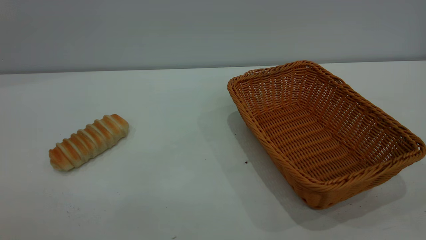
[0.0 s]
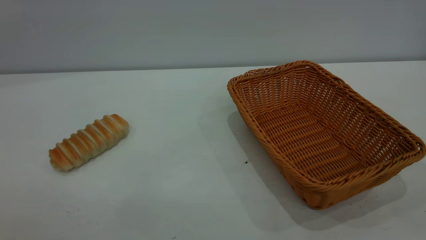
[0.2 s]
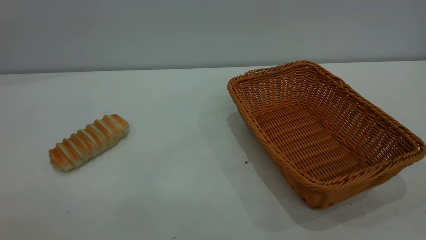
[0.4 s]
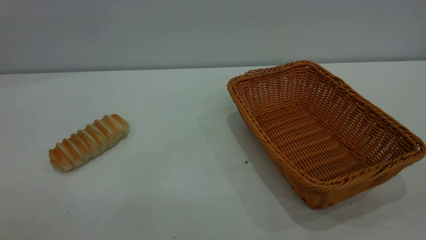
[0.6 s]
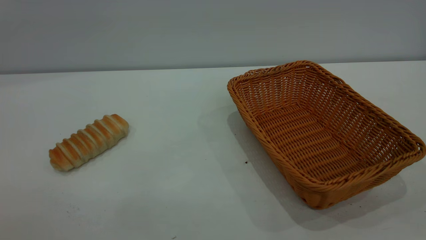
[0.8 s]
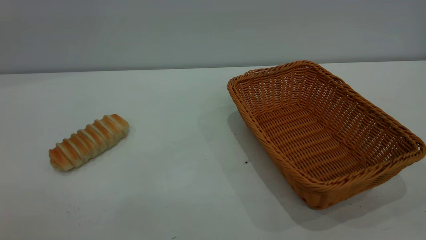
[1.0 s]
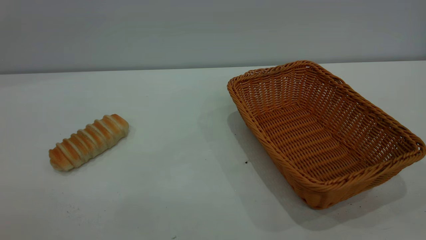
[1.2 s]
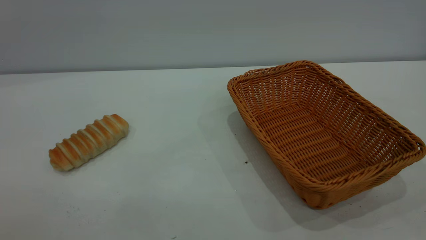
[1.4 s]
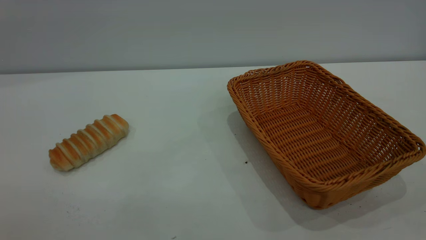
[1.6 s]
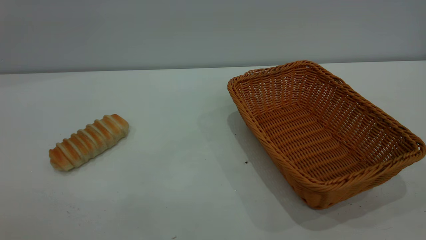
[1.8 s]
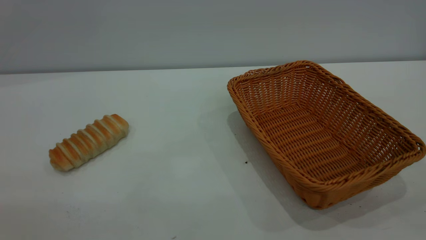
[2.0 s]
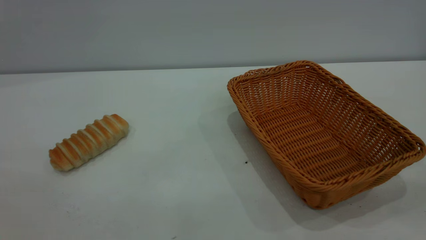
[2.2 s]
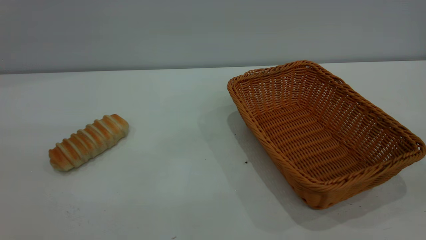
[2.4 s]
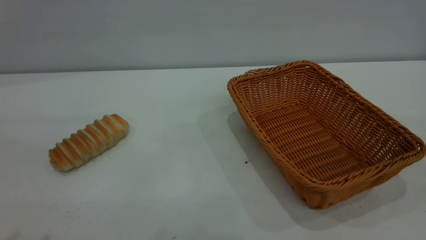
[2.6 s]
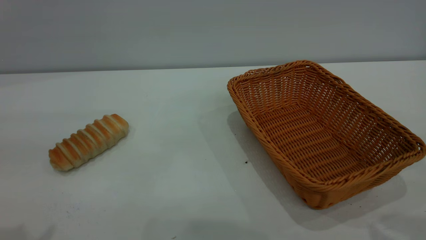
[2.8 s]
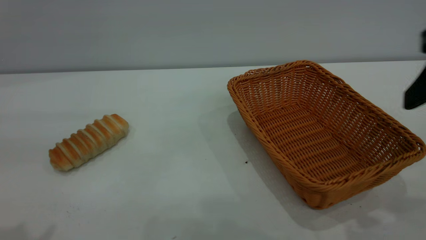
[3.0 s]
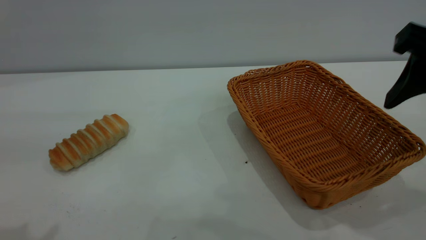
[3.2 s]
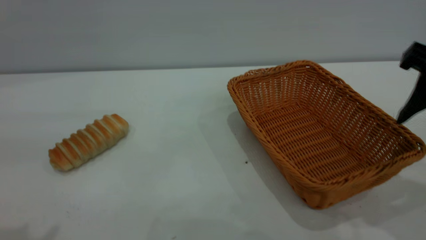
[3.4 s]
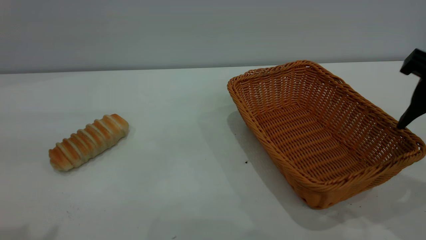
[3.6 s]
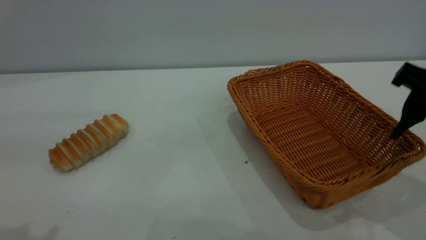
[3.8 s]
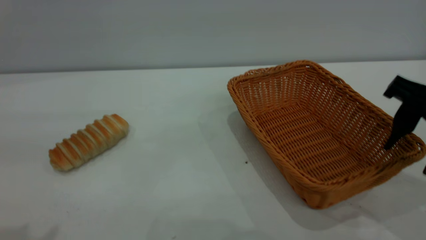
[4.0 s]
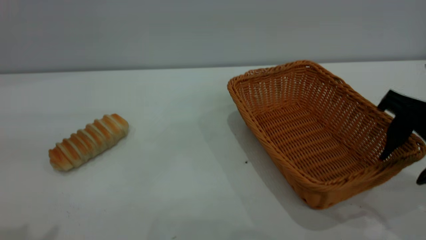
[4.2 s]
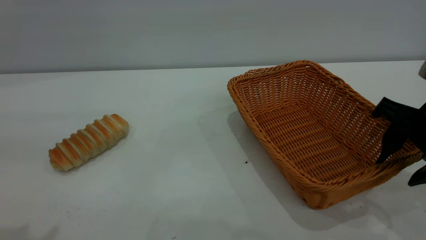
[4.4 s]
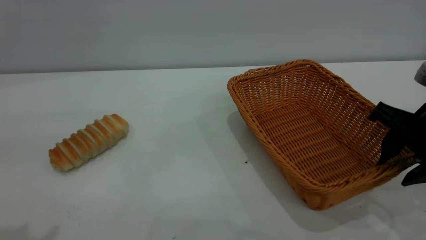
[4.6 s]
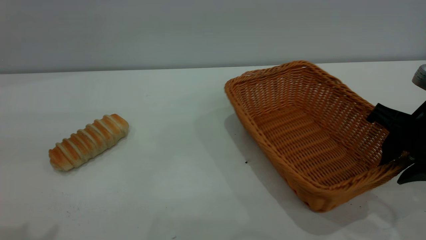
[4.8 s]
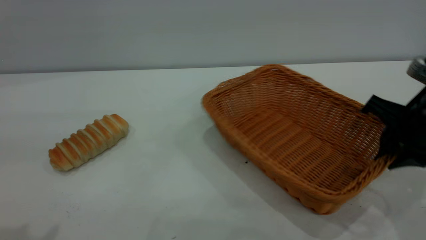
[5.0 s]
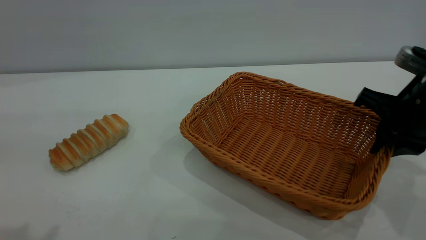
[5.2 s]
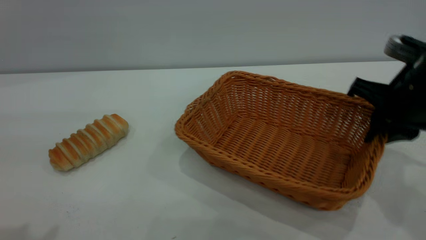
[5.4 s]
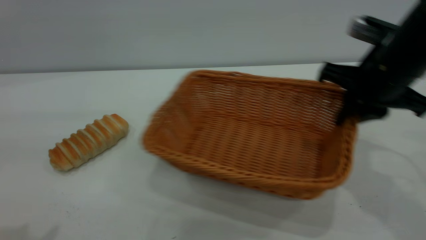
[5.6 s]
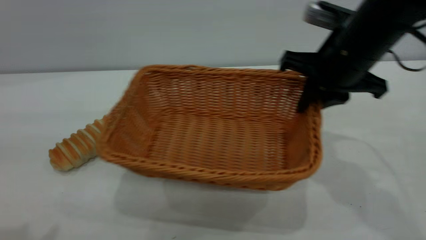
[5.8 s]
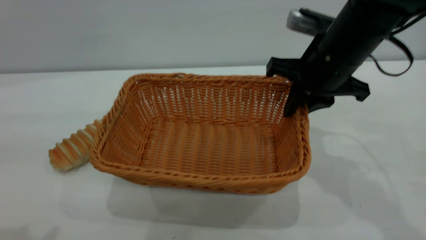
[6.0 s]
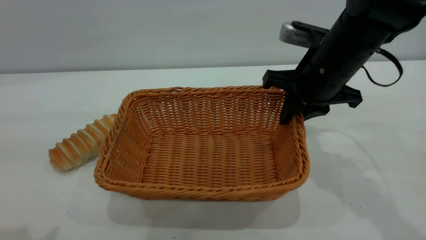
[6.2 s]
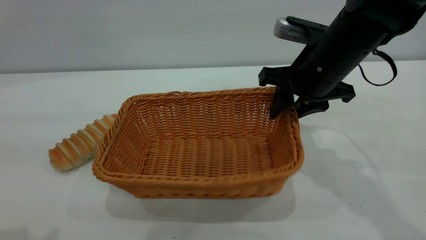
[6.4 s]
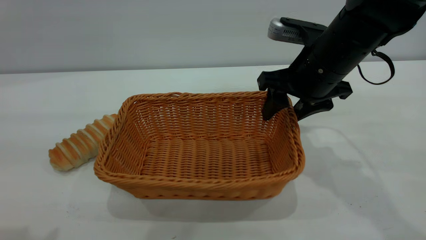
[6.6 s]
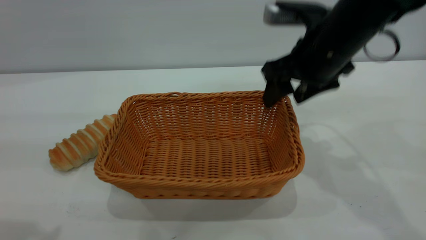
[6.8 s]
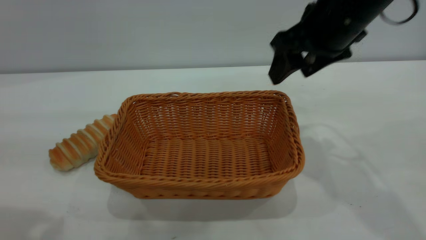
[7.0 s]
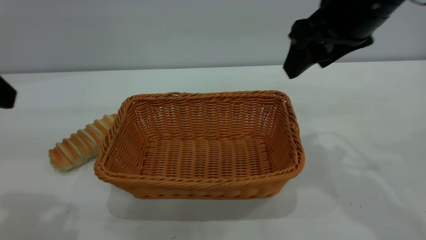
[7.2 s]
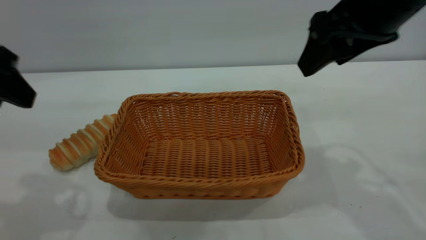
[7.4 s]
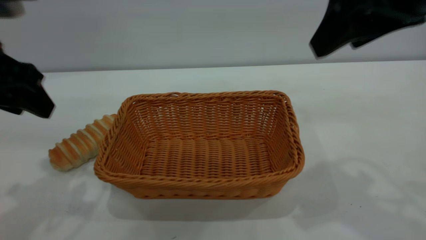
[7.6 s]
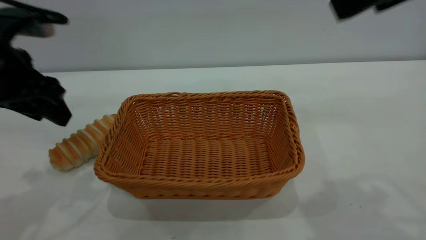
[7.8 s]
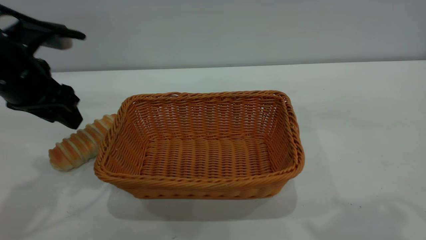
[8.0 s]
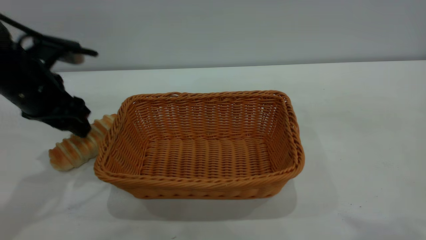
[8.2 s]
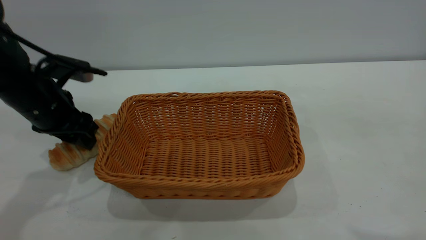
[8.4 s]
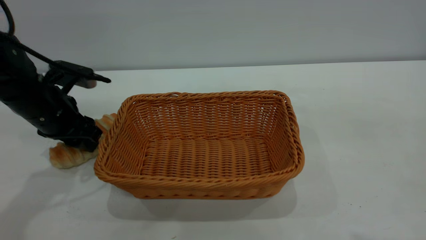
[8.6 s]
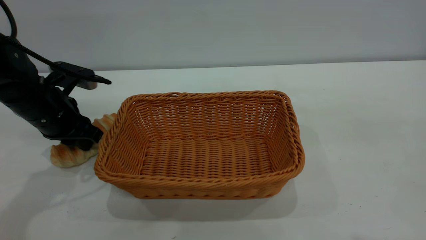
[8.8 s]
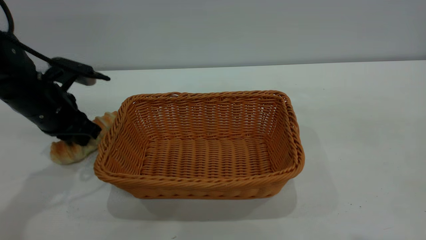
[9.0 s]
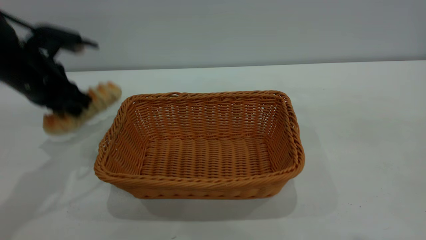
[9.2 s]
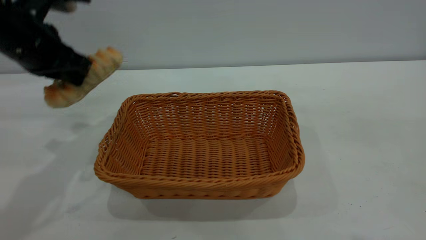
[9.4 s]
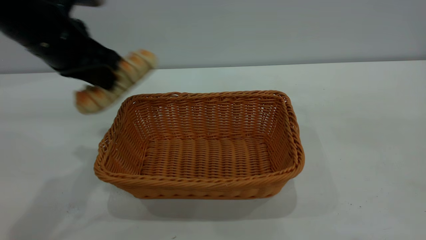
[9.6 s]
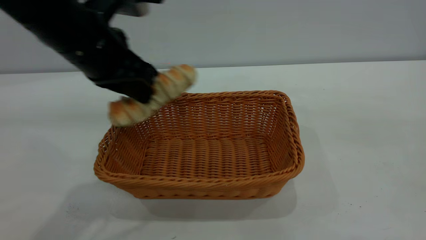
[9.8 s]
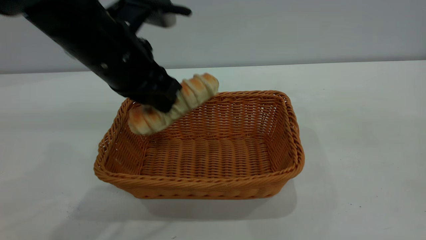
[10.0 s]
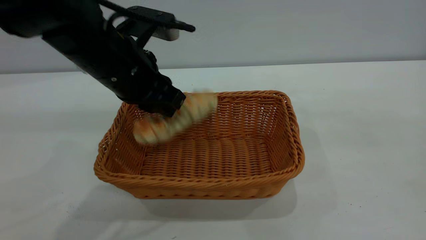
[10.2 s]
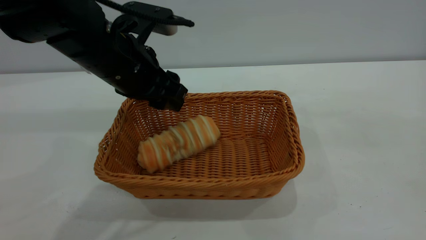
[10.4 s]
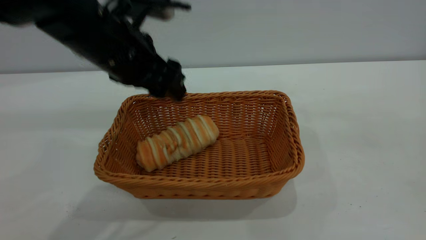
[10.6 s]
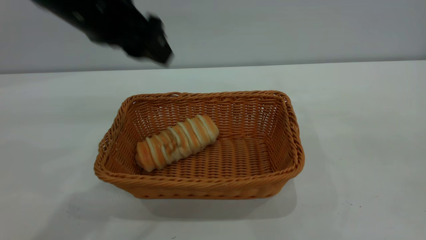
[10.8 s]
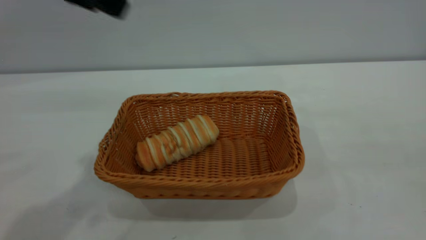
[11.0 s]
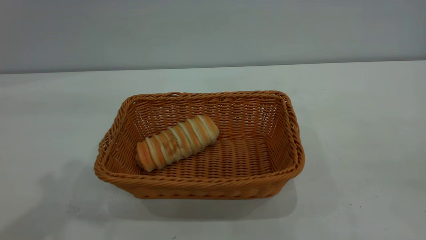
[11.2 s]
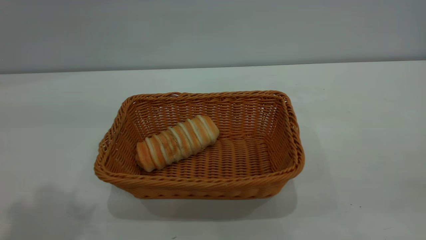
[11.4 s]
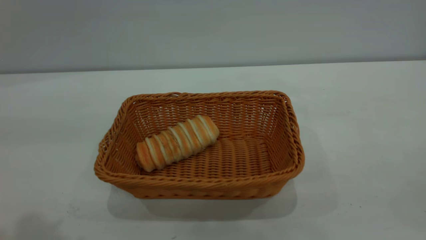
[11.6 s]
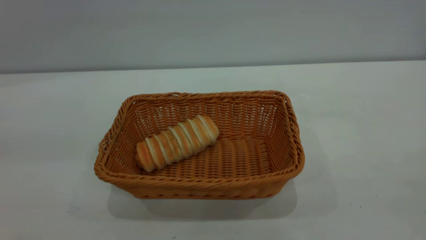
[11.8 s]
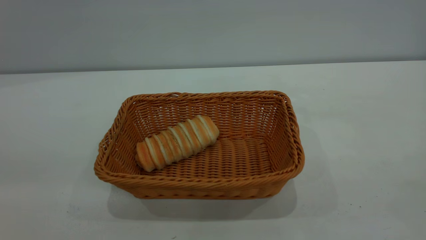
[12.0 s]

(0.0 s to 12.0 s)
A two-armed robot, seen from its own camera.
Task of the whole recording: One hand grasps the yellow basket and places it in the middle of the table, while the other hand picks up the long bread and puts it into the yellow basket.
Step, 0.0 s - 7.0 s: Move the basket to the center of view.
Step, 9.4 s - 10.8 s: place the bread into the basket.
0.0 s - 1.6 s: The two grippers keep their place.
1.6 s - 3.0 s: The right gripper goes some 20 cm forward.
3.0 s - 4.4 s: The right gripper is displaced downward and forward by roughly 15 cm.
4.4 s - 6.0 s: The right gripper shifts some 15 cm forward and to the left, and closes up.
6.0 s - 7.6 s: The left gripper goes about 15 cm forward and downward; the right gripper shifts approximately 15 cm upward and backward, and opens.
7.6 s - 9.0 s: The left gripper travels downward and forward by roughly 15 cm, and closes its fingers, while the right gripper moves backward and upward, roughly 15 cm.
9.0 s - 10.4 s: The left gripper heads to the right and upward, covering about 15 cm, and opens up.
10.4 s - 12.0 s: The right gripper travels backward, downward and to the right by roughly 15 cm. Meanwhile the left gripper moves backward, upward and to the left, approximately 35 cm.

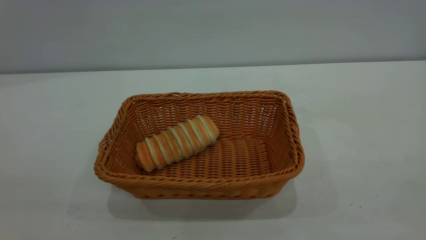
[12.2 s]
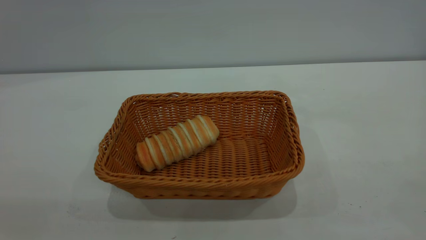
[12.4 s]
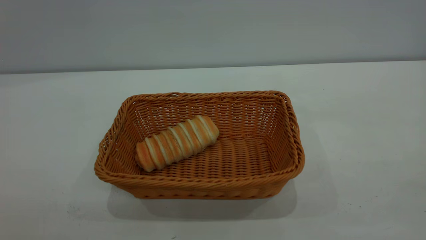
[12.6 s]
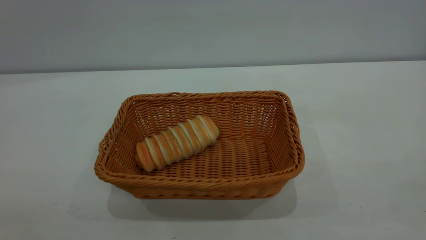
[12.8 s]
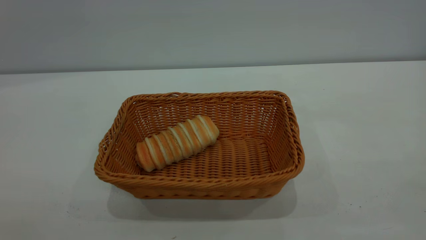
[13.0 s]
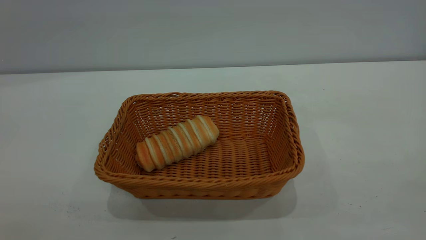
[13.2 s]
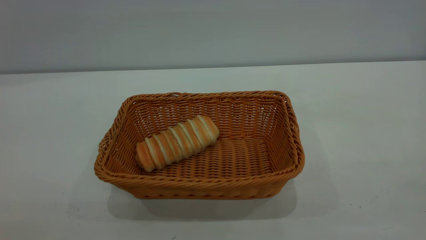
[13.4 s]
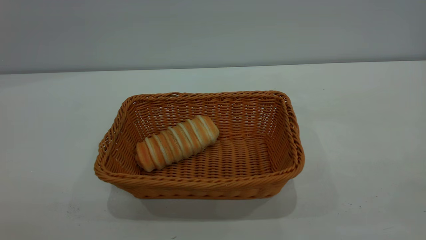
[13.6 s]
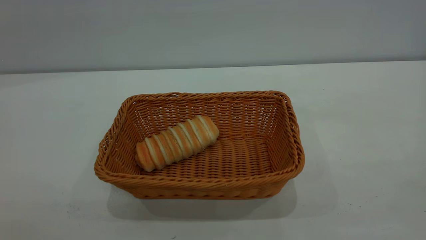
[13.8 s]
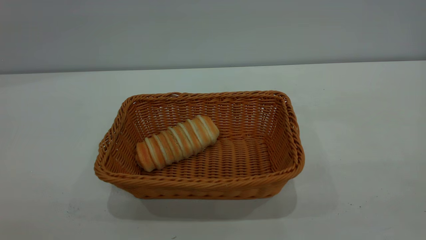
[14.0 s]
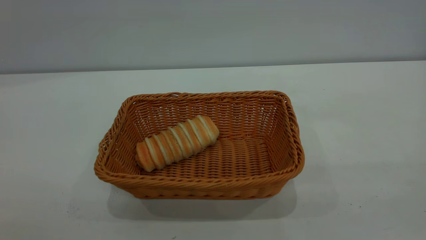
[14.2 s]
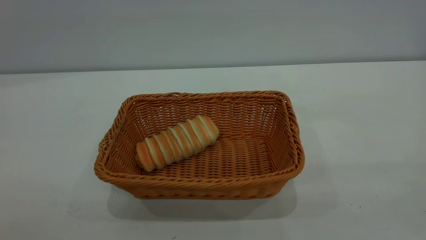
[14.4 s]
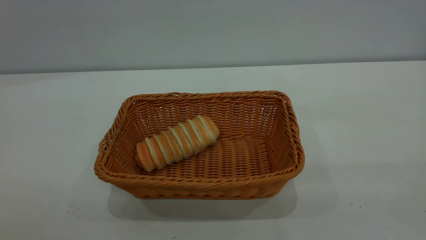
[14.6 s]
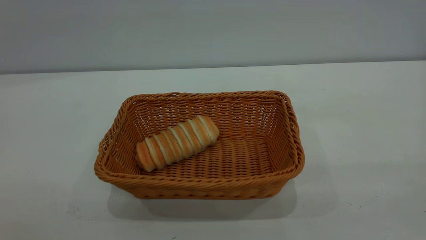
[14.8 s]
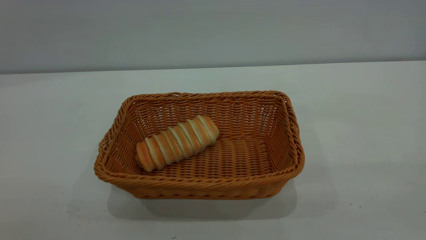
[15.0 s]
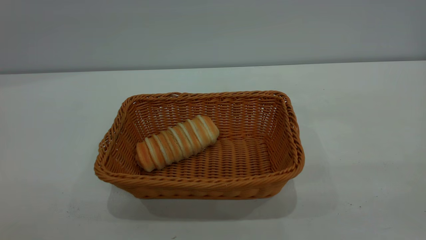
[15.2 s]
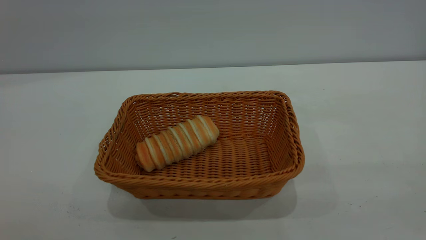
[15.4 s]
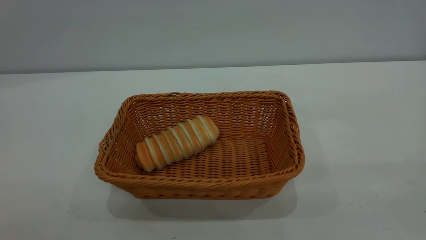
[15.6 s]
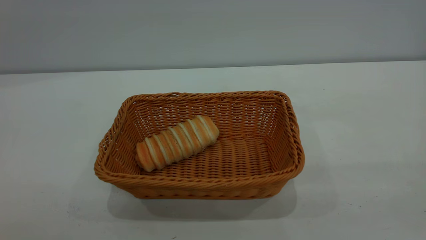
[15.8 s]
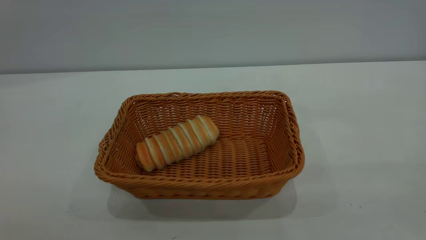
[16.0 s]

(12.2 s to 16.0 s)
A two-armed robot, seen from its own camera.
Task of the whole recording: One hand grasps the yellow basket and places it in the middle of the table, while the other hand picks up the long bread and puts it into the yellow basket.
14.8 s - 16.0 s: Neither gripper changes place.
